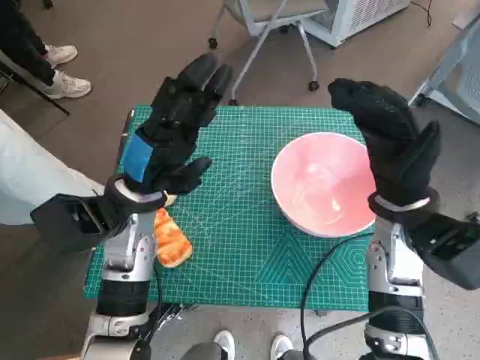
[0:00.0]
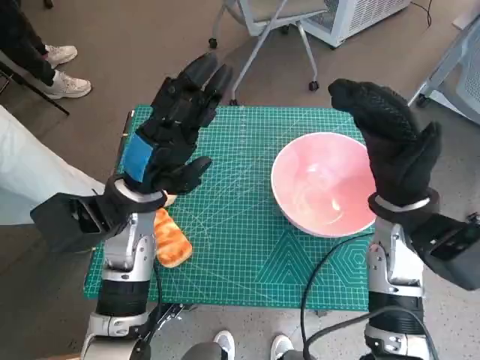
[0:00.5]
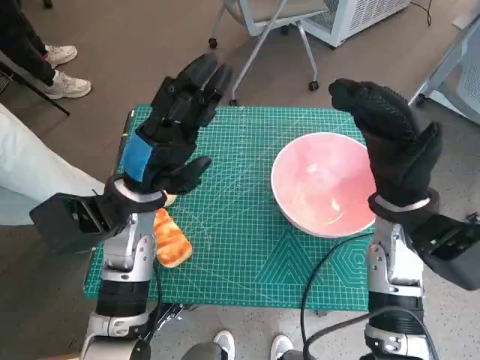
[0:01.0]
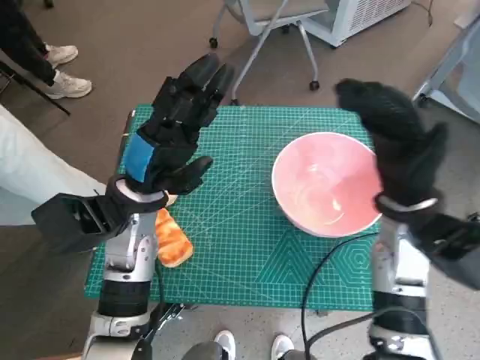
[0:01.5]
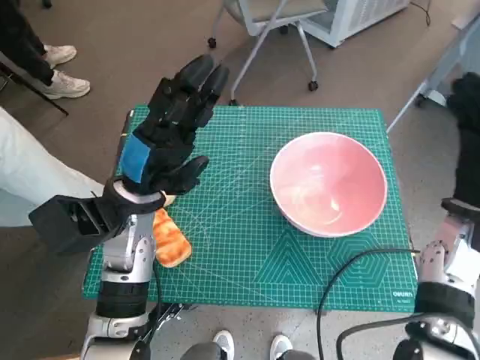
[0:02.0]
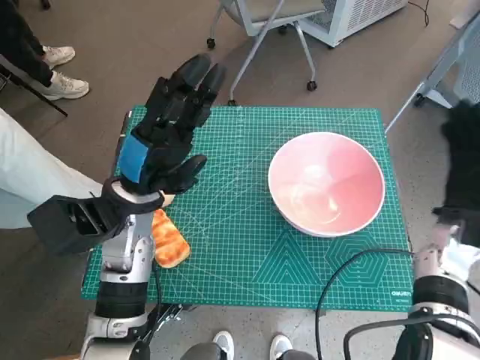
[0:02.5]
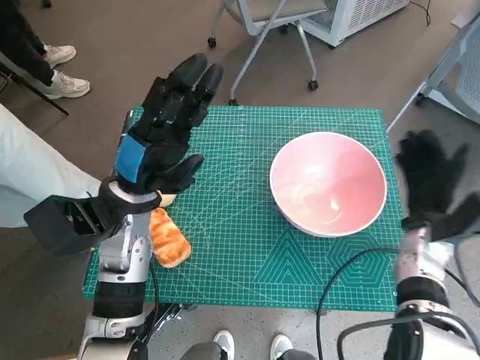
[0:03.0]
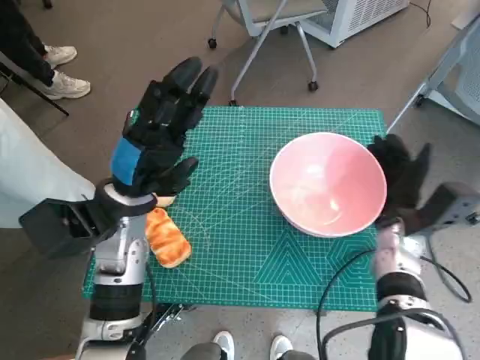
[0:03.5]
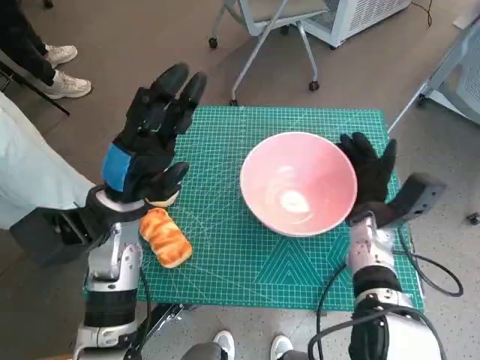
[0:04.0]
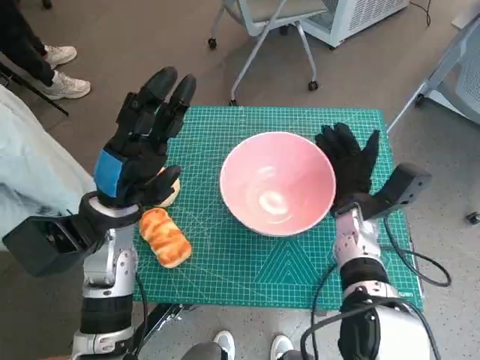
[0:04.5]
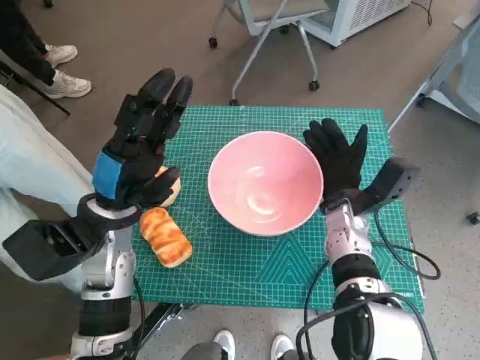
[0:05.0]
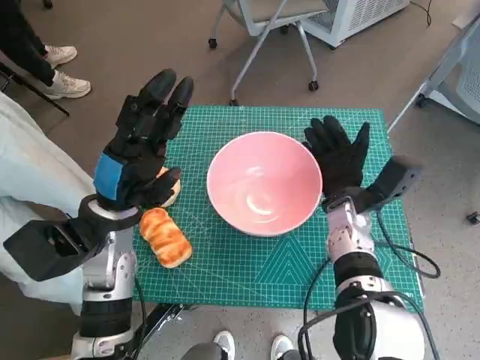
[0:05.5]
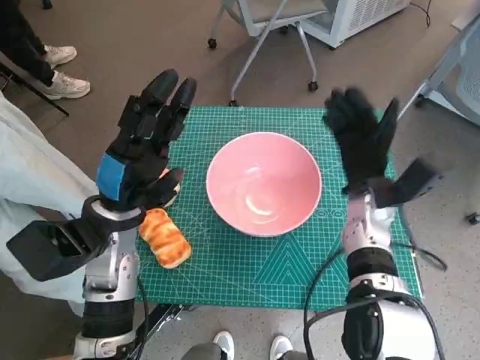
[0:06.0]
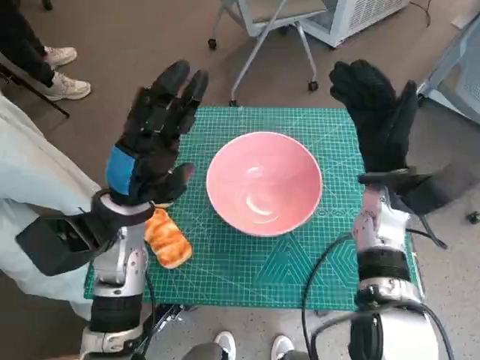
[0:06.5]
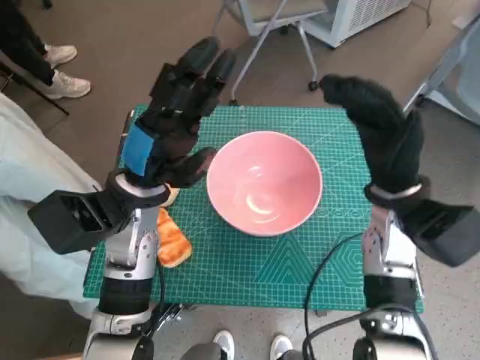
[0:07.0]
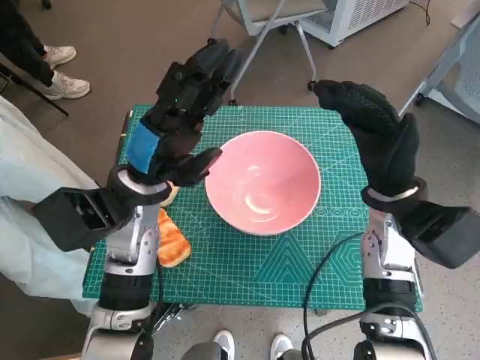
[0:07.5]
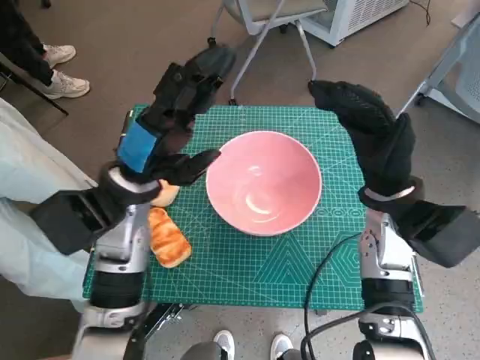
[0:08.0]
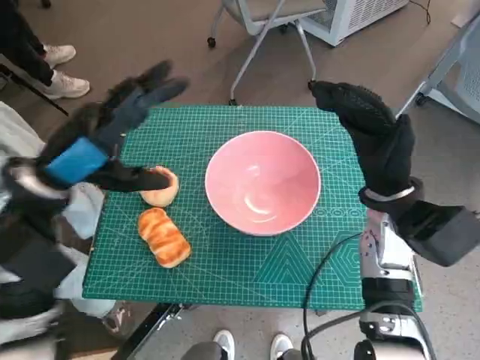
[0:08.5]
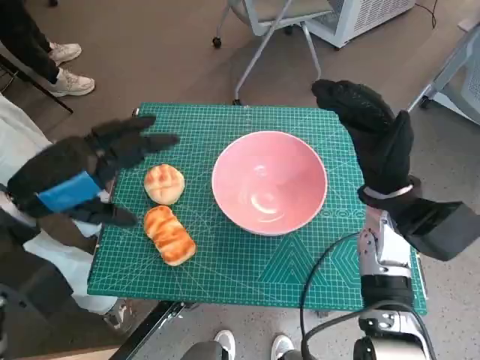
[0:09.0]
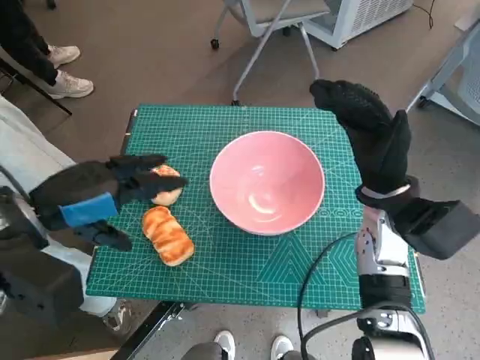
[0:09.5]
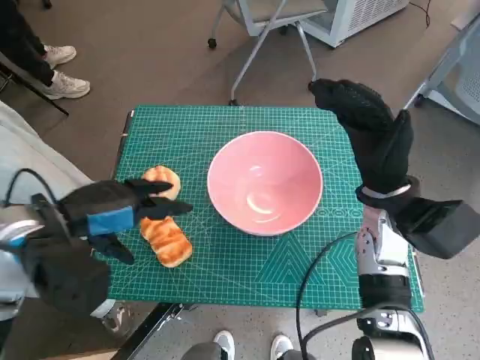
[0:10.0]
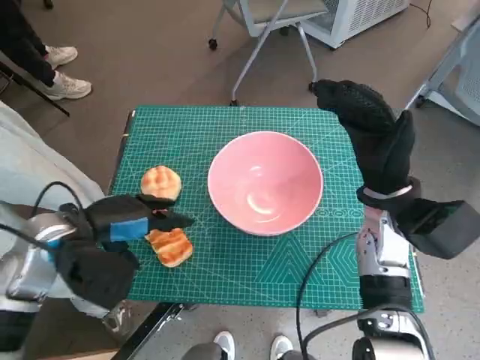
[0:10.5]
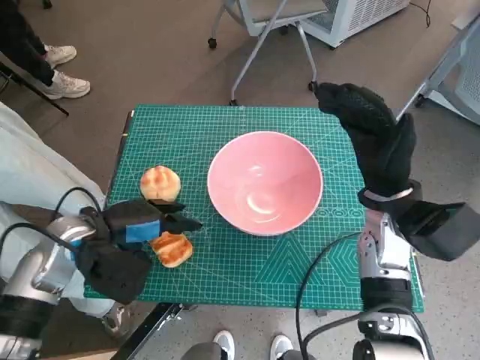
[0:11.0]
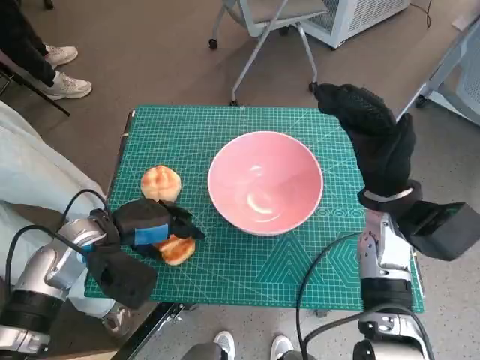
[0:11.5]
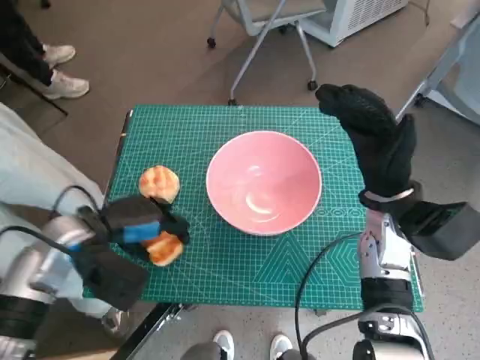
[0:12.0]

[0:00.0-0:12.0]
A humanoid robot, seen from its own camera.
Task of the whole recording: Push the bowl into the center of the table and put the bread into the bowl.
Step, 0:00.0 to 0:05.5: Move the pink bowl to the center of table with right hand.
Step, 0:06.0 to 0:11.5: Grasp the long bread with left hand.
0:02.0 to 0:04.0: The right hand heads downward and to the left, covering approximately 10 cm.
0:04.0 to 0:06.0: The right hand changes place by some 5 cm.
0:06.0 to 0:08.0: The right hand heads upward, covering roughly 5 cm.
0:08.0 to 0:10.0: The left hand is displaced to the left and backward by about 10 cm.
0:10.0 to 0:12.0: The left hand is displaced downward by some 10 cm.

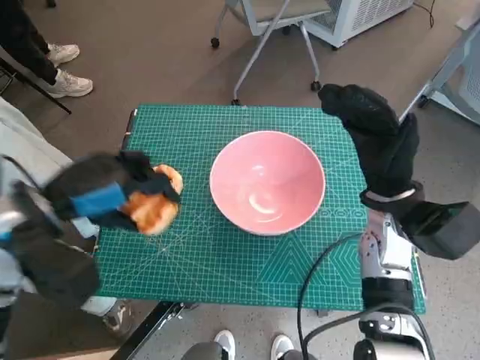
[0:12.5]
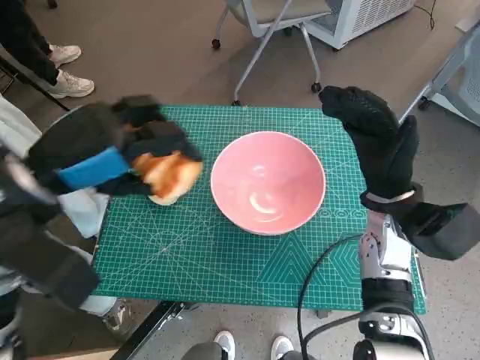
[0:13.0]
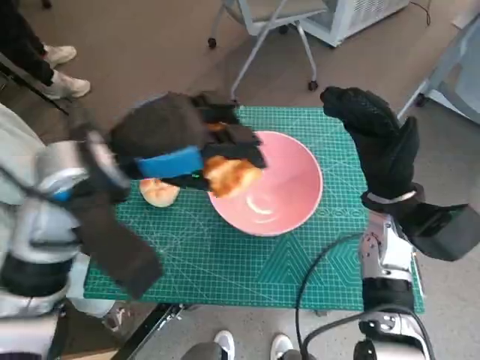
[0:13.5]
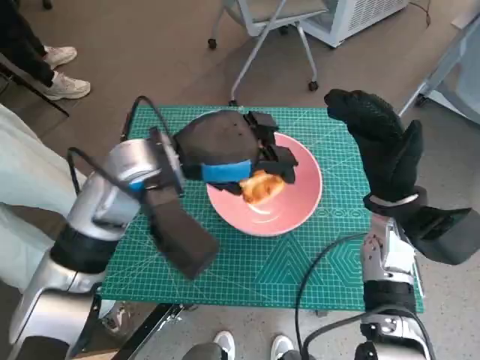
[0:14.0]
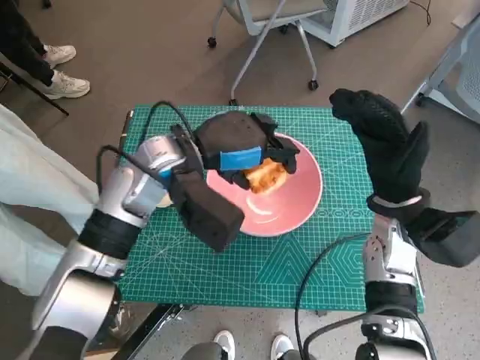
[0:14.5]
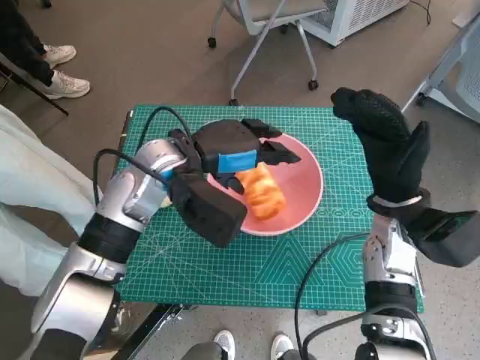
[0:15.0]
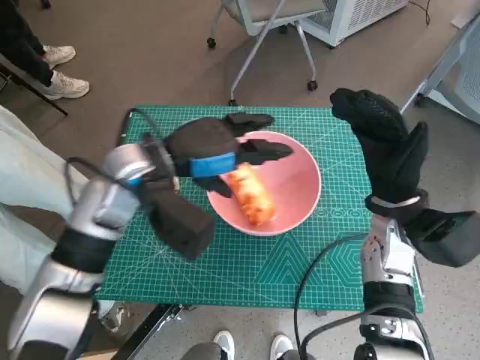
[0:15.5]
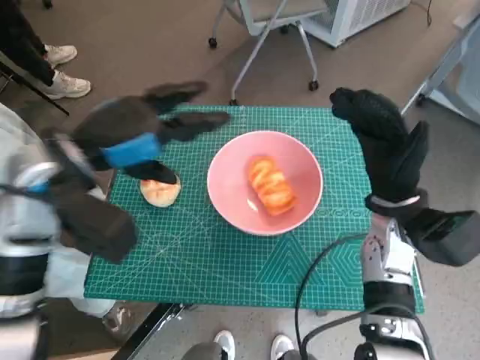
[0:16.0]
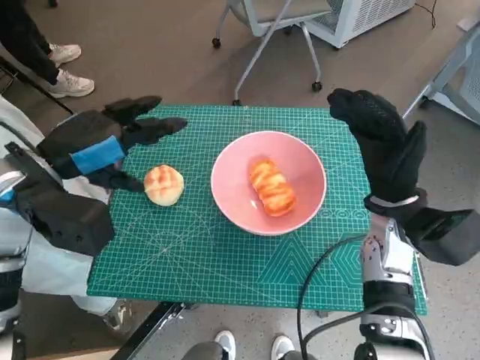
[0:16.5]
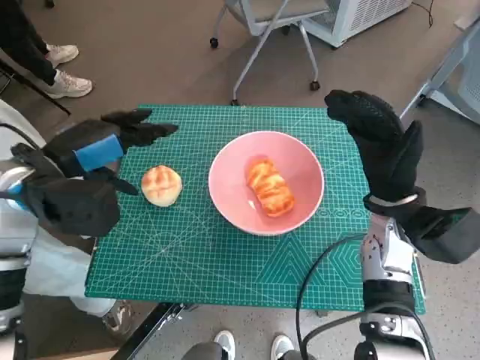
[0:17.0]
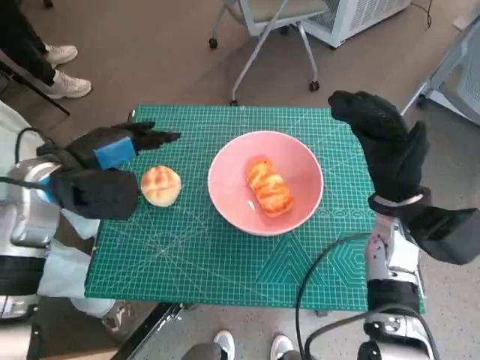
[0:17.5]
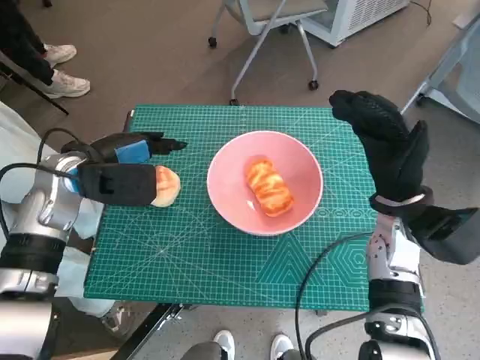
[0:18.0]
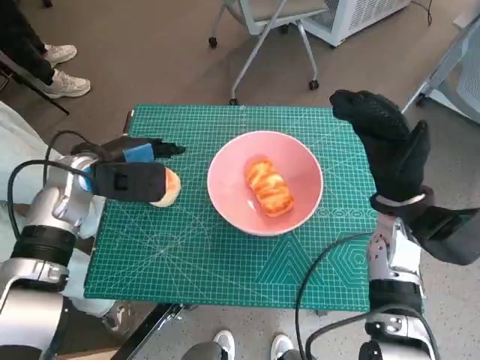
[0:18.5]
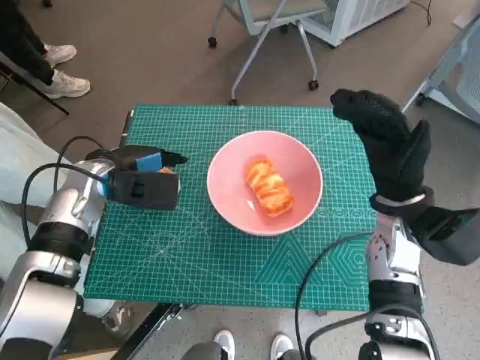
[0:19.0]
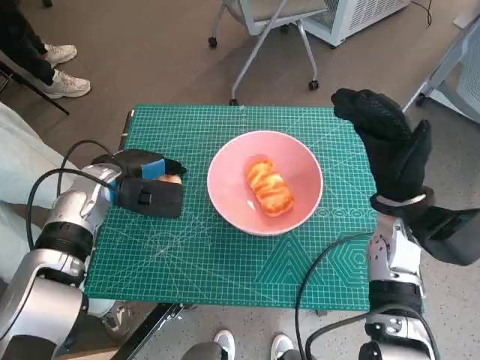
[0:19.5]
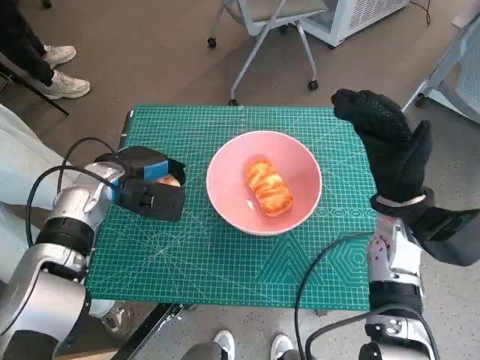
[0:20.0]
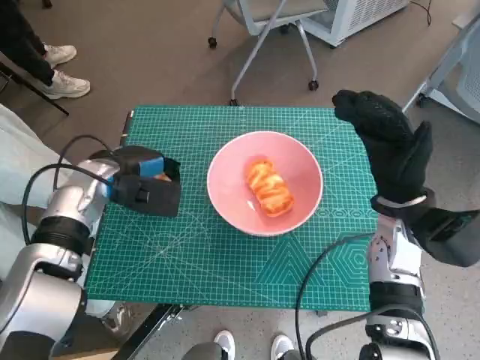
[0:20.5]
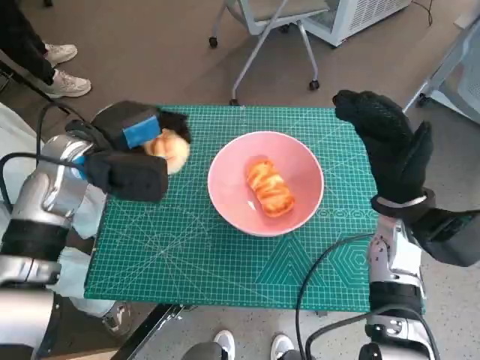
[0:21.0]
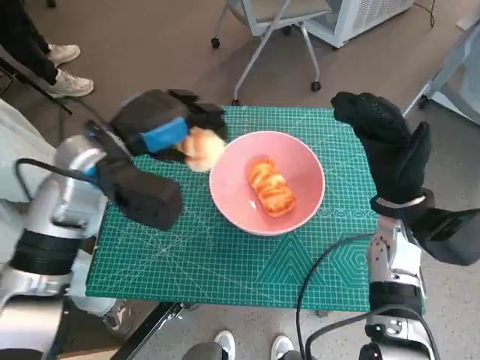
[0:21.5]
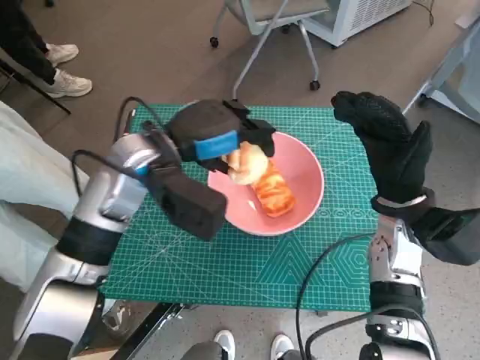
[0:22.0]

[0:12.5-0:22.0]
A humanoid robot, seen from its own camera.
Task of the whole recording: Push the bowl into the center of the table and put the bread into the bowl.
Step, 0:12.5 to 0:15.5: Place the long bread in pink bowl with left hand.
Step, 0:16.0 to 0:20.0: Grasp the round bread with left hand.
0:12.5 to 0:14.5: The left hand heads to the right and forward, covering about 15 cm.
0:14.5 to 0:16.5: The left hand moves to the left and backward, approximately 15 cm.
0:16.5 to 0:18.0: The left hand travels downward and forward by about 10 cm.
0:18.0 to 0:20.0: The left hand moves downward, some 5 cm.
0:20.0 to 0:22.0: The left hand moves upward and to the right, about 10 cm.

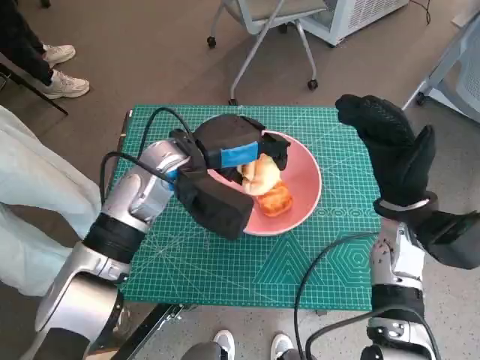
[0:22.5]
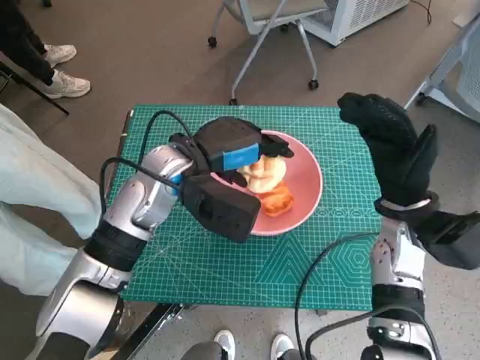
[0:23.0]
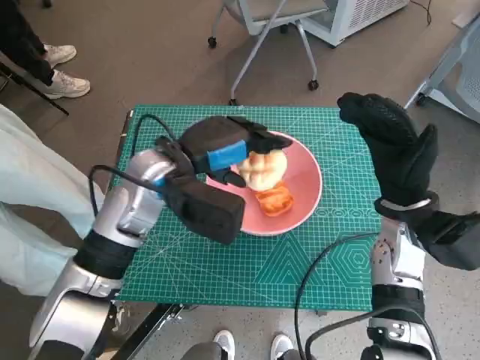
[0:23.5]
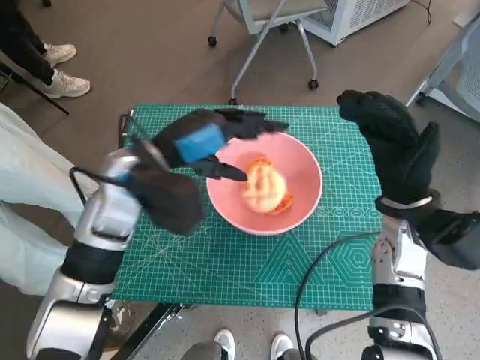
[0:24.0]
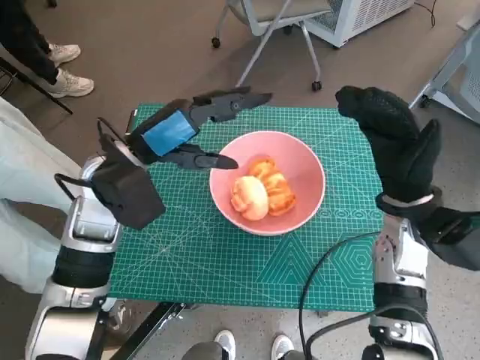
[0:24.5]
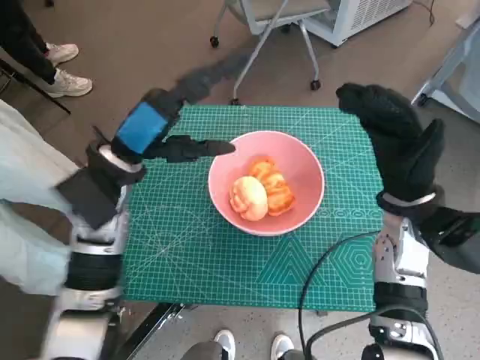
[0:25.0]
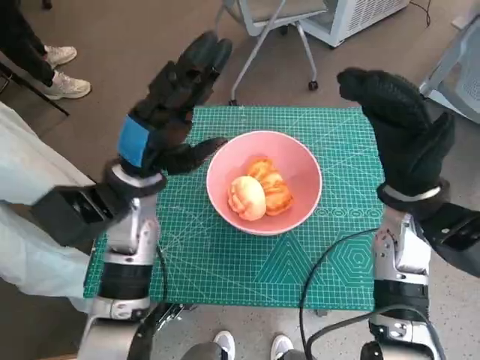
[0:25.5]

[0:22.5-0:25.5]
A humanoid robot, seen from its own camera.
Task of the whole recording: Push the bowl into the center of the table and put the bread into the bowl.
0:22.5 to 0:24.0: There are only small adjustments of the hands.

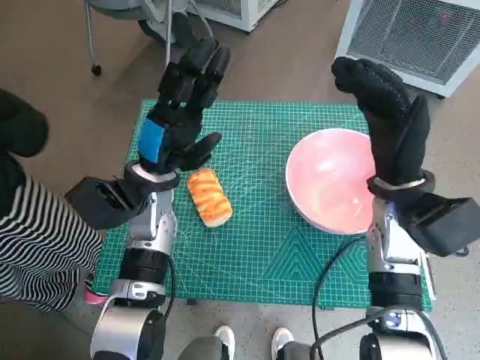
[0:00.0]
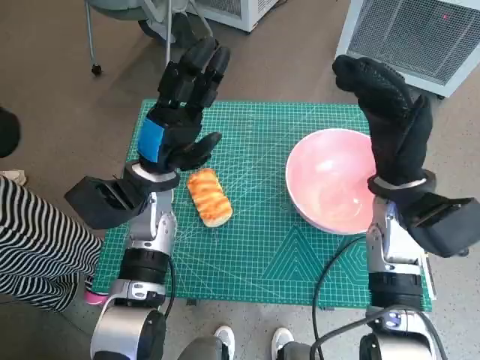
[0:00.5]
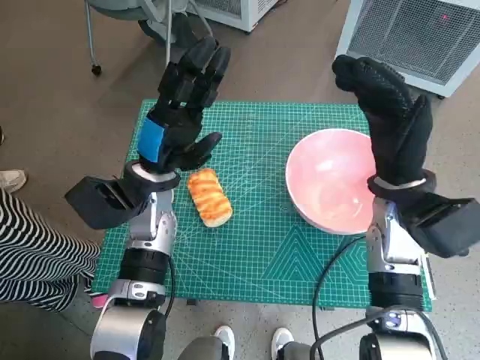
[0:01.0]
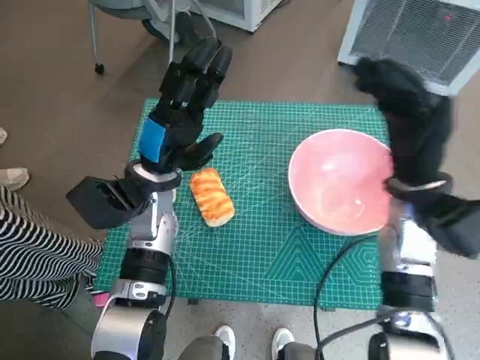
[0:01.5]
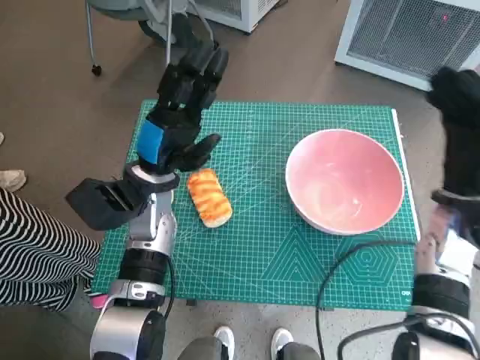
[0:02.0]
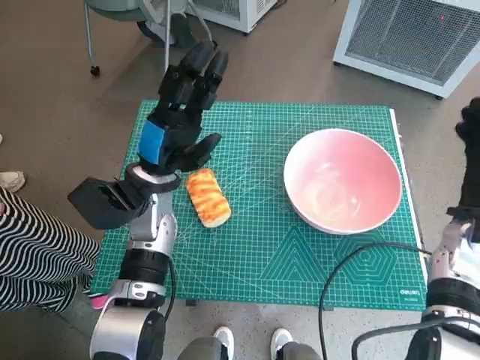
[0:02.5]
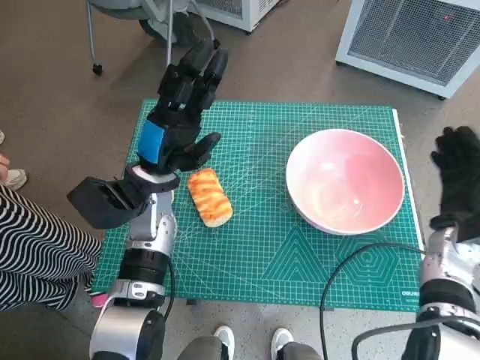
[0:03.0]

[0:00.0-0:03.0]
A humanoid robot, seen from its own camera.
Task of the whole recording: Push the bowl into the center of the table and put the bread into the bowl.
0:01.5 to 0:03.0: The right hand shifts approximately 15 cm to the right and downward.
